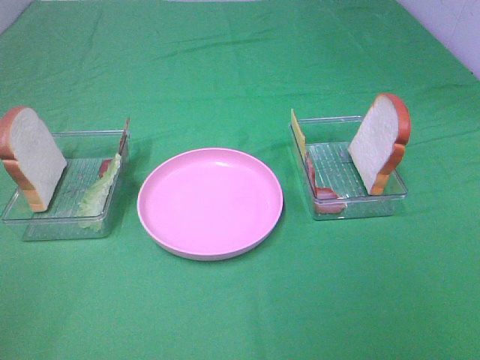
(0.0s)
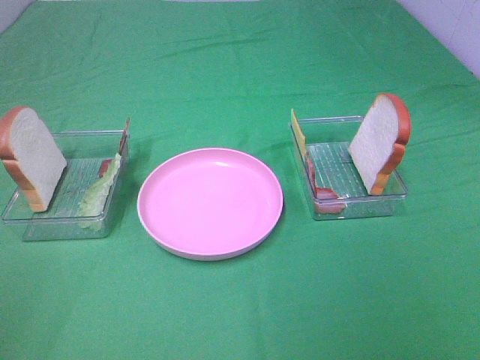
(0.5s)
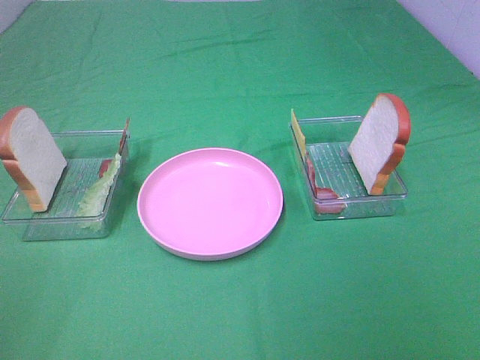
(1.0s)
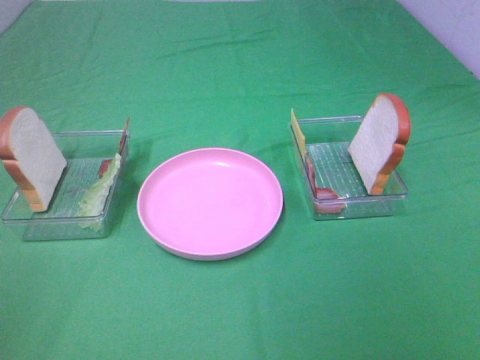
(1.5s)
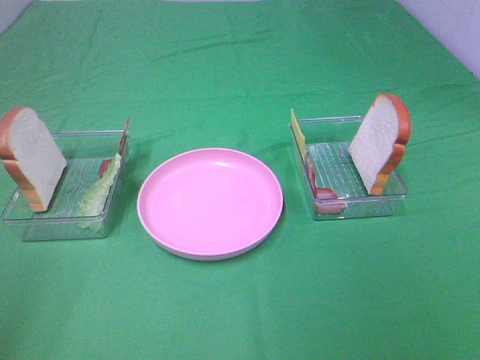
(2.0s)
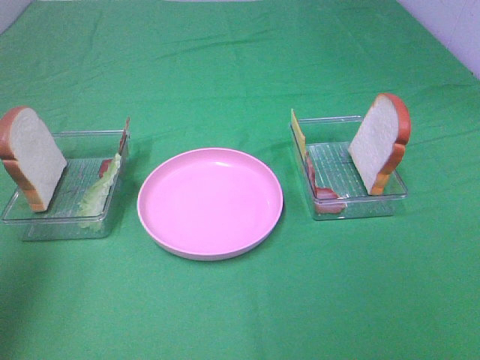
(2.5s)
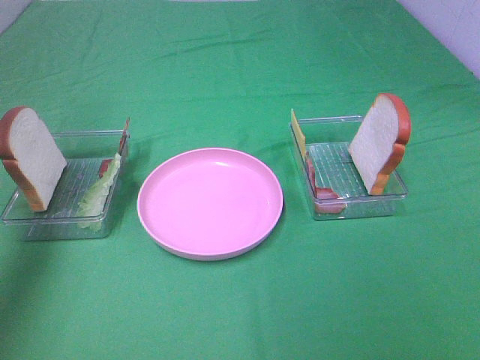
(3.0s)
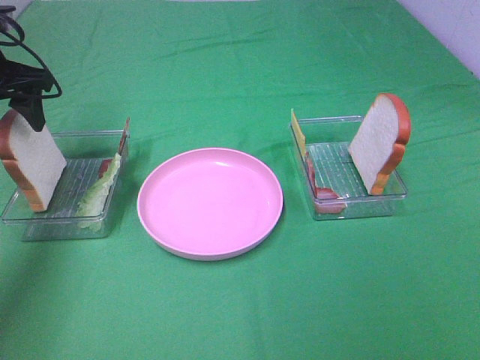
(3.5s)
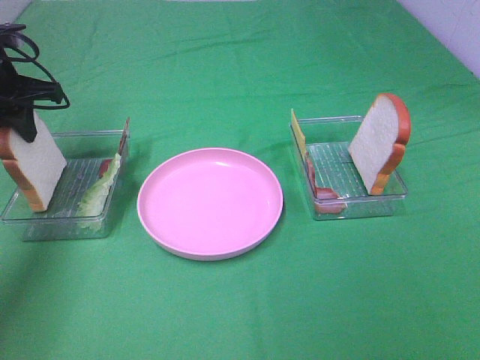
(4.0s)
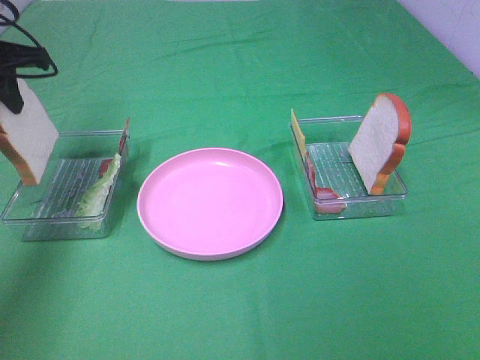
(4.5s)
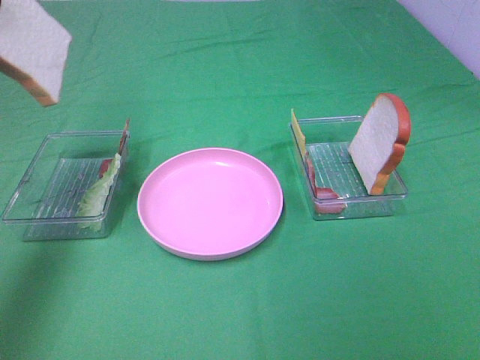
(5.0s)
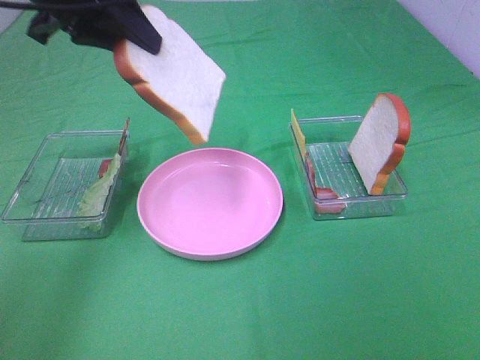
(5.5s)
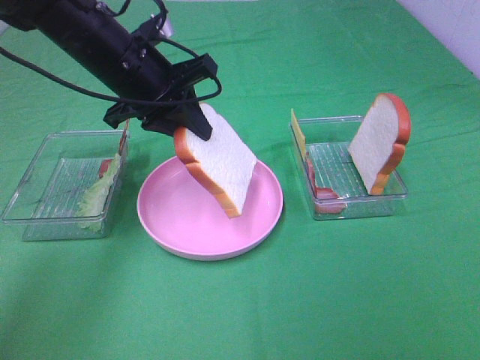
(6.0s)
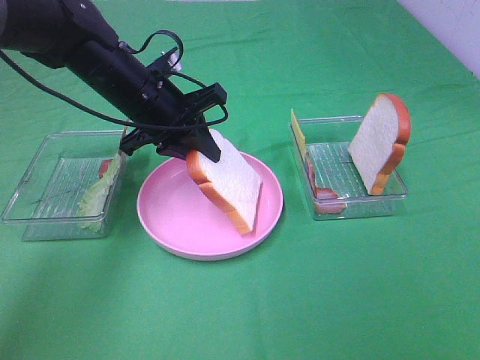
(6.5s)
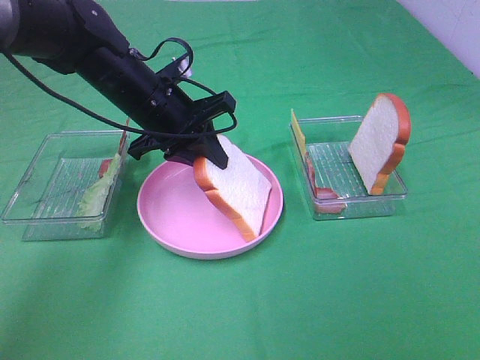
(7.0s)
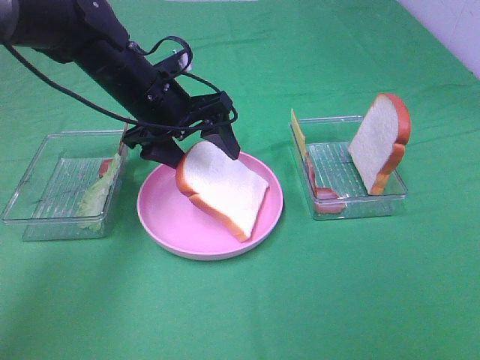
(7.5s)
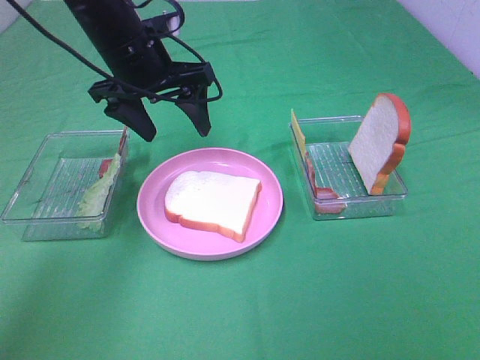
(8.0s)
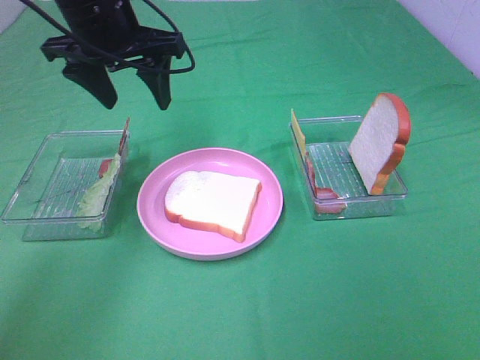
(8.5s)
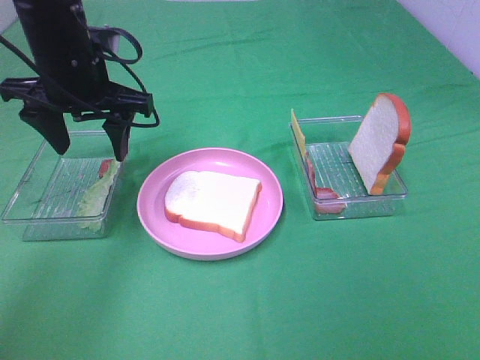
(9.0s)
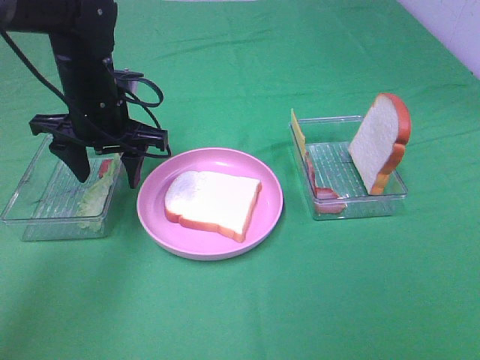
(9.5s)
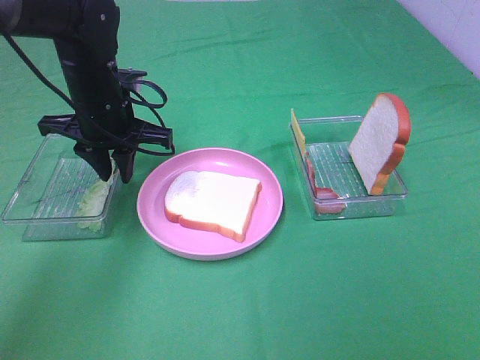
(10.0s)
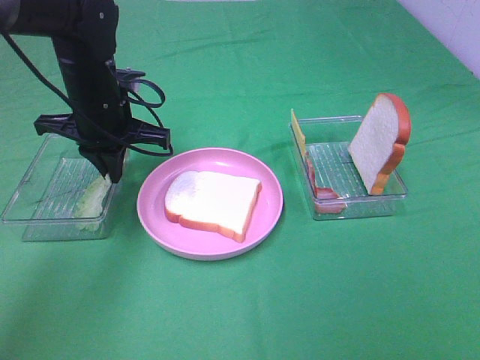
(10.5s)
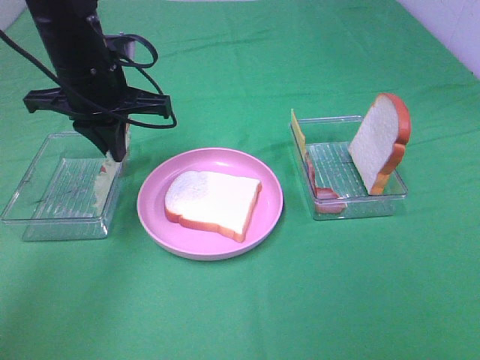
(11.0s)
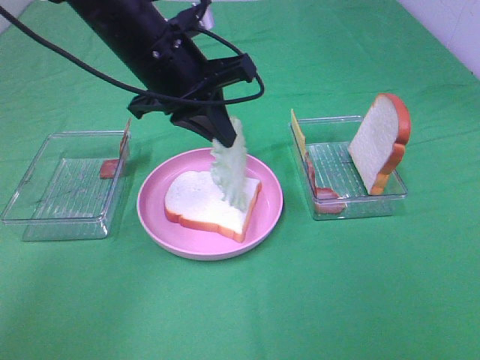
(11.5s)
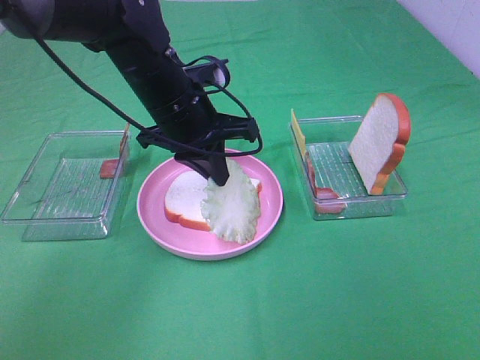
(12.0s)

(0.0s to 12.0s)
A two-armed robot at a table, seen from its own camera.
Task of the whole recording: Make sandwiches.
Step, 0.0s - 4.0s: Left hand:grab the bread slice.
Step, 4.5s - 7.5s: Left hand:place the bread slice on the plate.
Step, 8.0s - 10.0s: Left hand:grab the lettuce slice.
2.0s - 4.0s: The left gripper travels forward by about 40 cm, and closes.
4.0s - 6.0s: The left gripper travels to the right by approximately 20 cm.
6.0s - 8.0s: The left gripper opens its fingers.
8.0s - 10.0s: The left gripper travels downward by roughly 5 cm, and closes up.
10.0s - 12.0s: The left gripper moves to the right, about 10 cm.

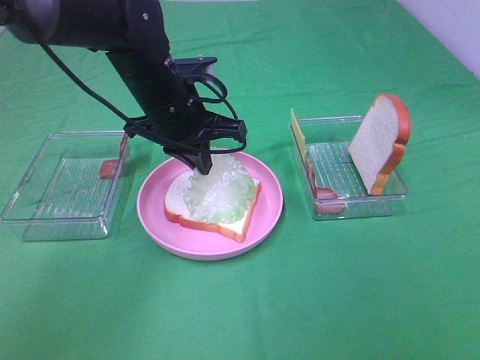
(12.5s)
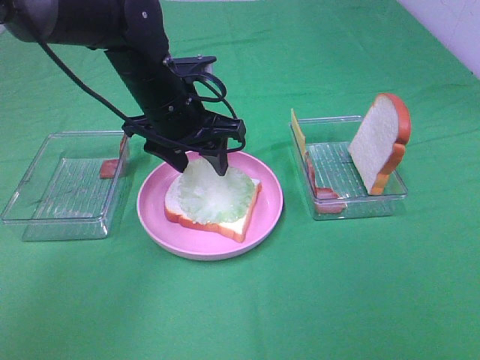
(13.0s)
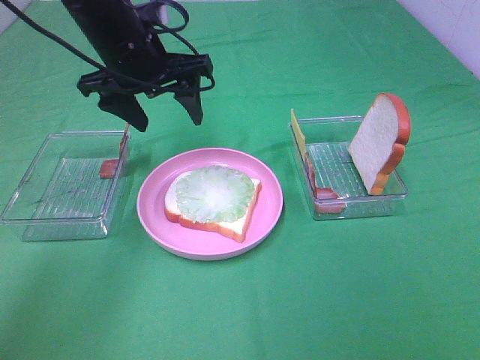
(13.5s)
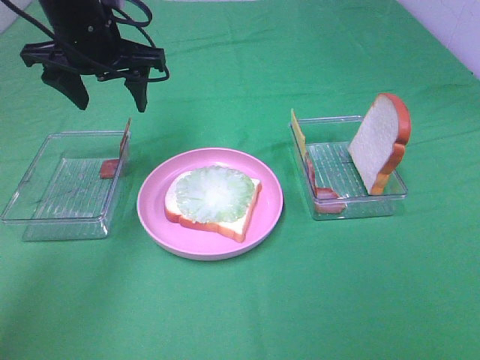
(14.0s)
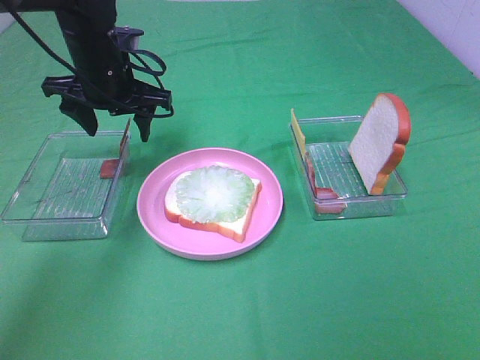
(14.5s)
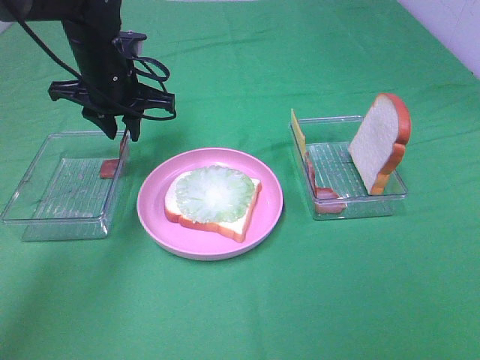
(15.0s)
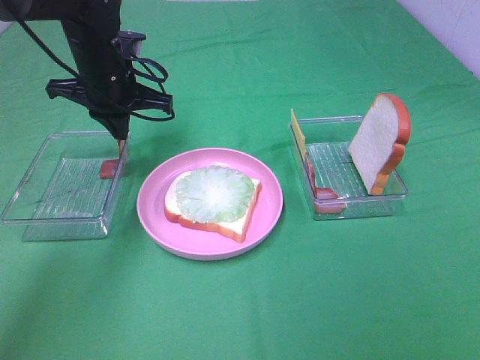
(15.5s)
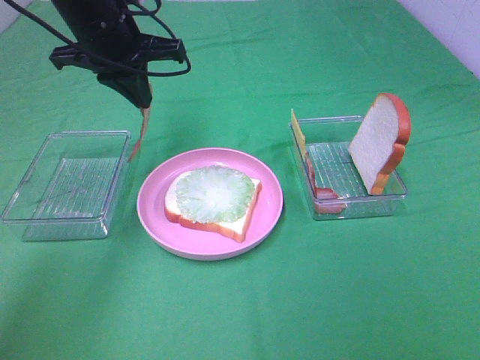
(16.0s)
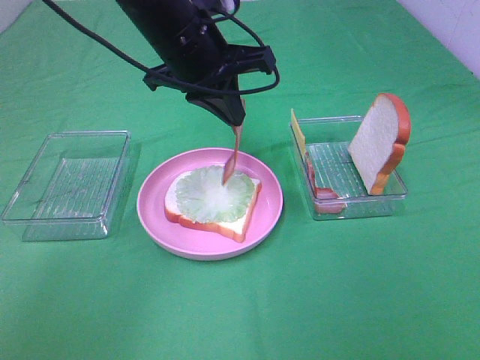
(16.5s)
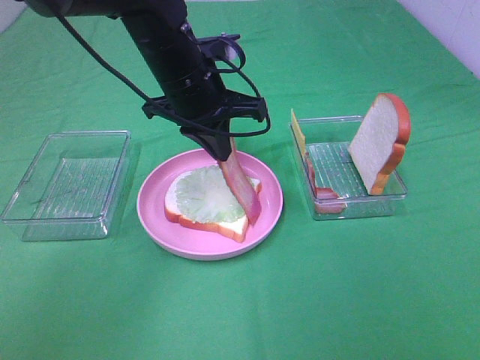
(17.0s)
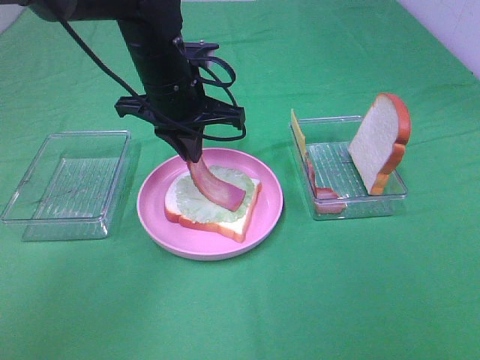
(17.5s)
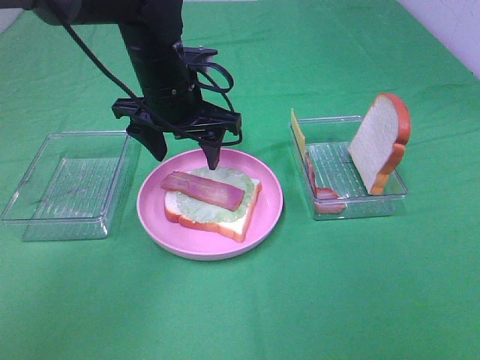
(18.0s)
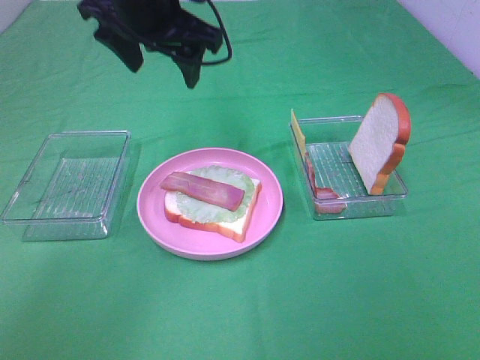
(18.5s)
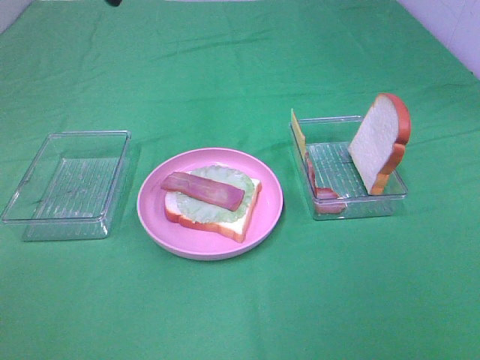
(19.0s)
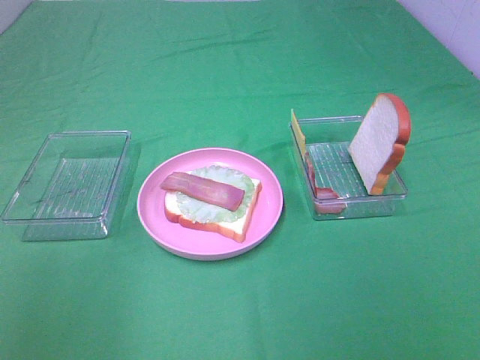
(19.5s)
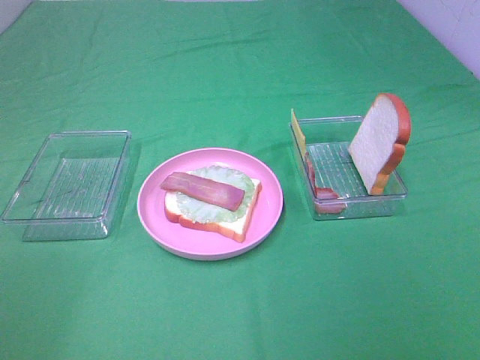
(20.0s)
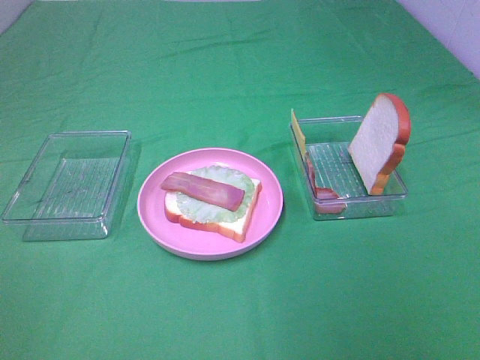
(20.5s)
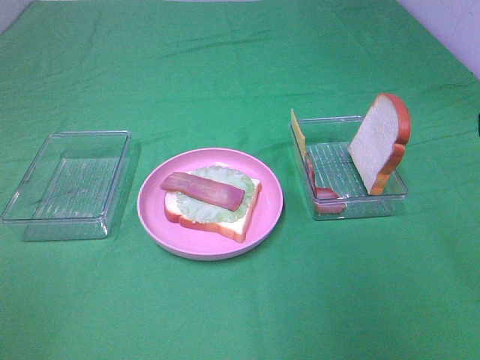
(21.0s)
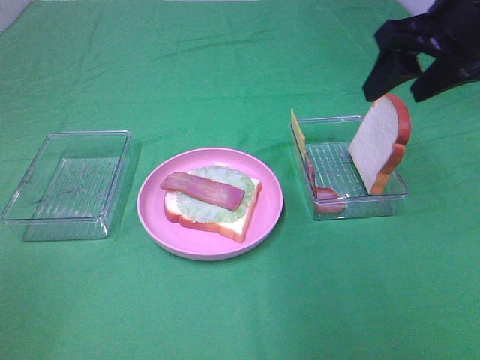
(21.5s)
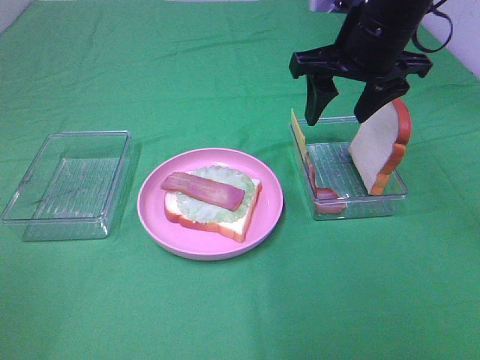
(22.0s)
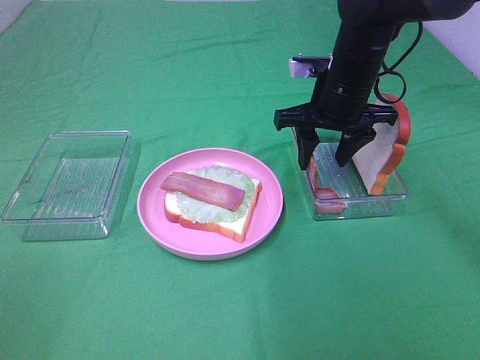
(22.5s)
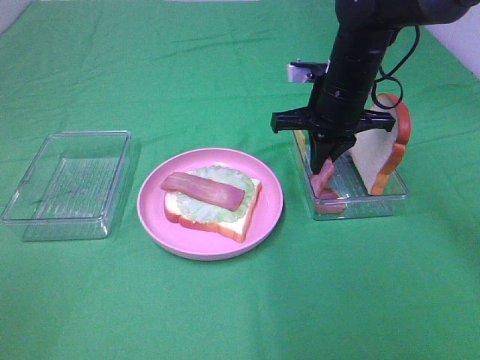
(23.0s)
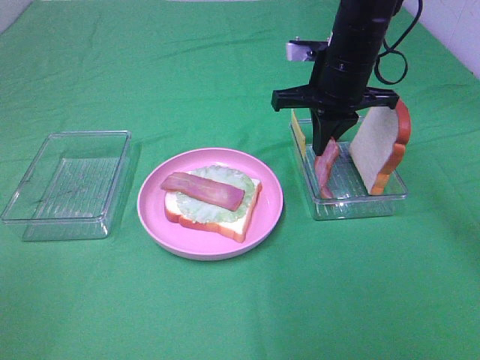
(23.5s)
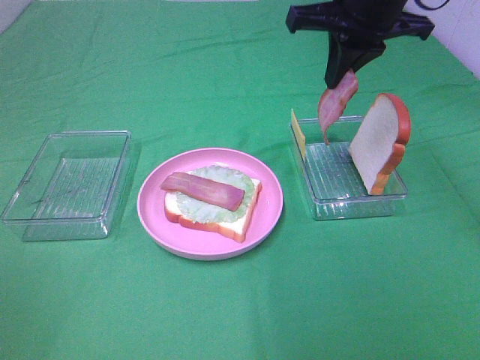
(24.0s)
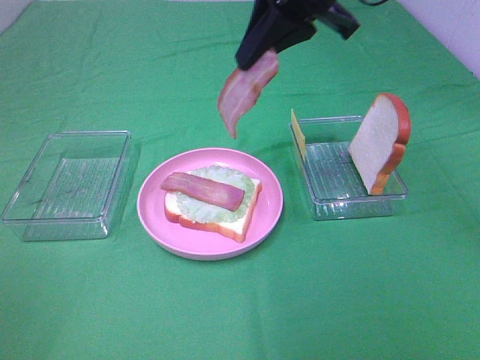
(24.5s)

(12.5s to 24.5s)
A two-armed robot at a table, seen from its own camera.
Task of the whole recording: Make sandwiches.
Step, 13.5s - 15.0s: Left hand:grab the bacon.
Step, 15.5s - 17.5s: Left hand:place bacon on lettuce slice.
Step, 18.0s - 23.0s: Right hand:grab the bacon.
12.5s - 14.5s: The left gripper is displaced to the left and forward by some 10 cm, and opens its fingers.
14.5s - 16.5s: The left gripper moves to the right, upward and backward, roughly 15 cm, and closes up.
16.5s - 18.5s: The left gripper goes approximately 5 cm upward, and opens its fingers.
18.5s - 20.5s: The left gripper heads backward and to the left, covering about 50 cm.
20.5s - 22.5s: The right gripper moves forward, some 35 cm.
22.5s - 24.5s: The right gripper moves upward, about 15 cm, and closes its fingers.

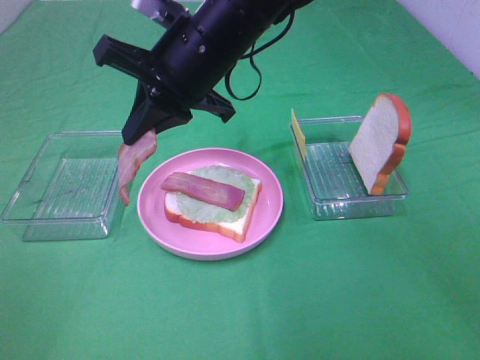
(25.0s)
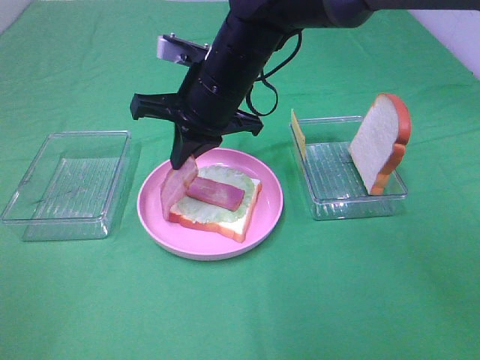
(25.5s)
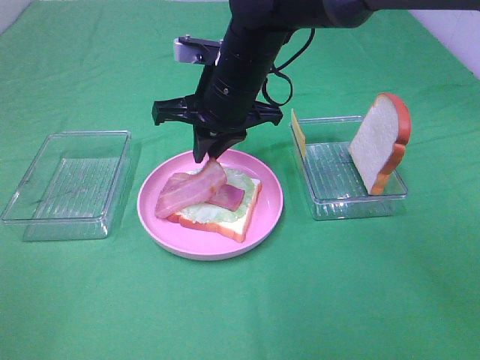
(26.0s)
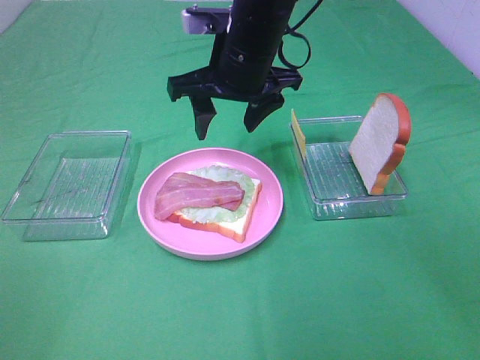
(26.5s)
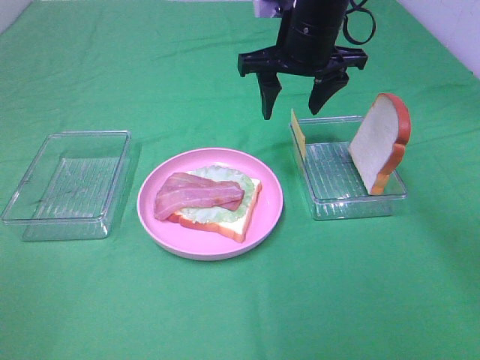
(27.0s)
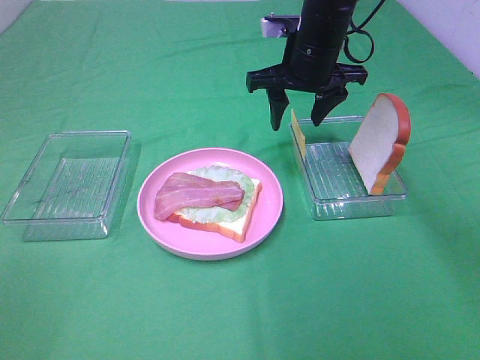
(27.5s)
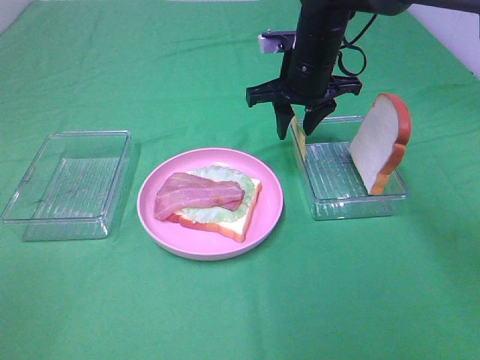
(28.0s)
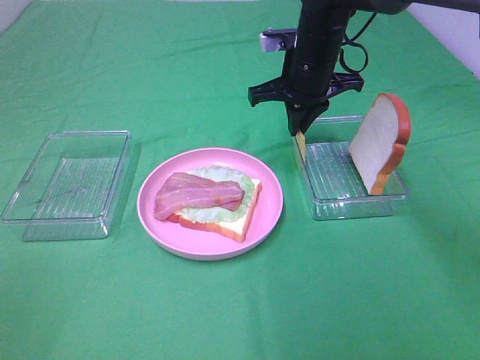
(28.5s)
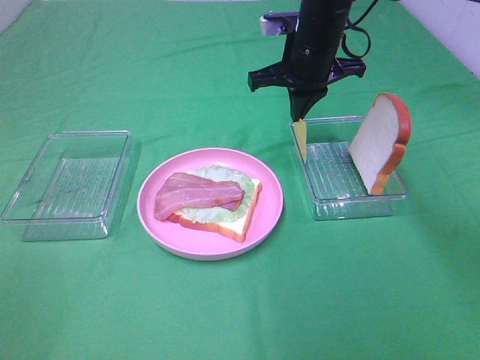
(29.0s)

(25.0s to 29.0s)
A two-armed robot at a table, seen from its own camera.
Task of the whole recording: Make sandwiches.
Step, 26.5s - 28.5s: Right hand:grab the cheese slice.
25.0s - 27.0s: The right gripper moves to the right and forward, approximately 15 cm, and opens its fingers.
27.0s - 29.0s: The right gripper closes up.
